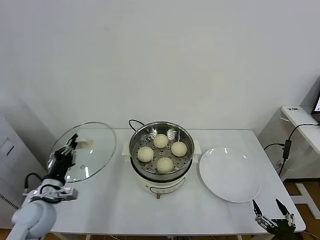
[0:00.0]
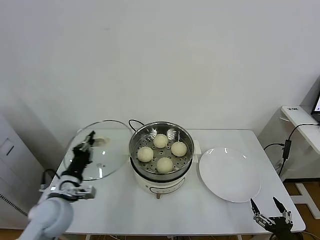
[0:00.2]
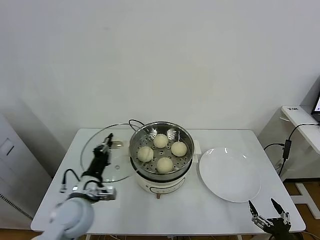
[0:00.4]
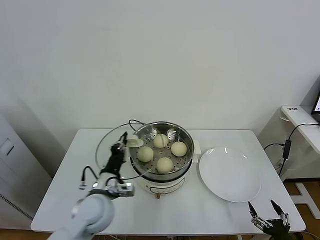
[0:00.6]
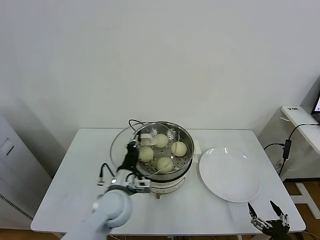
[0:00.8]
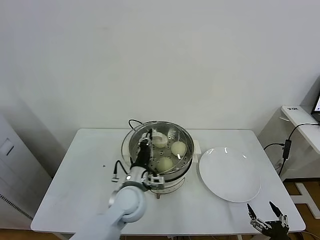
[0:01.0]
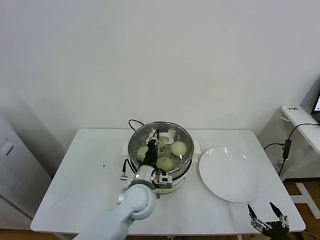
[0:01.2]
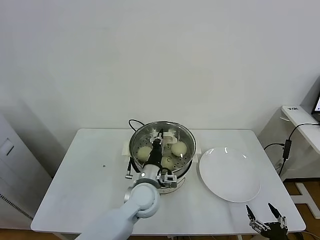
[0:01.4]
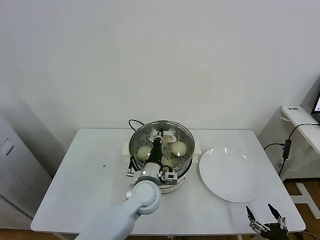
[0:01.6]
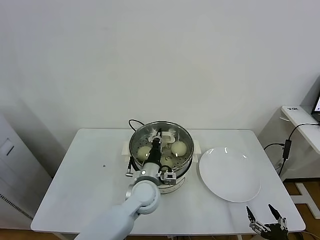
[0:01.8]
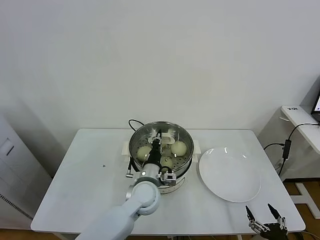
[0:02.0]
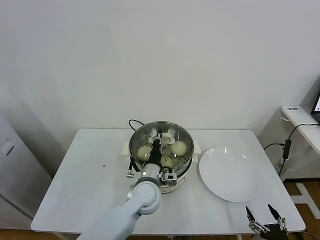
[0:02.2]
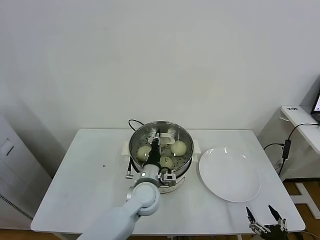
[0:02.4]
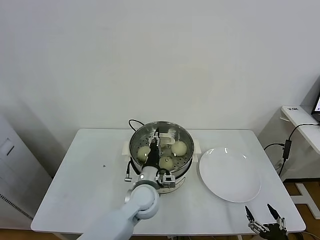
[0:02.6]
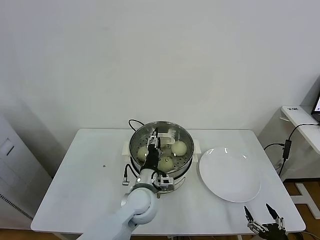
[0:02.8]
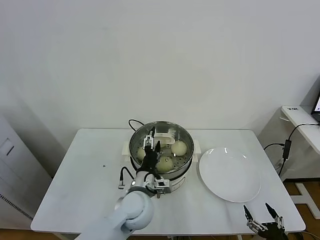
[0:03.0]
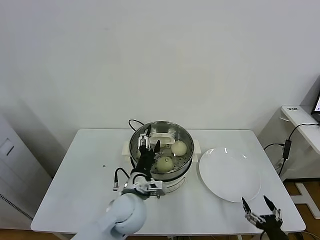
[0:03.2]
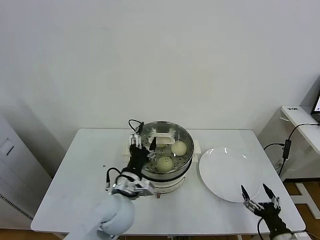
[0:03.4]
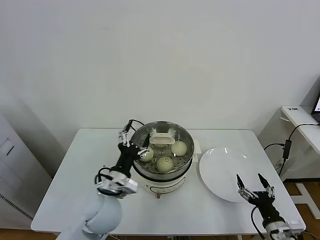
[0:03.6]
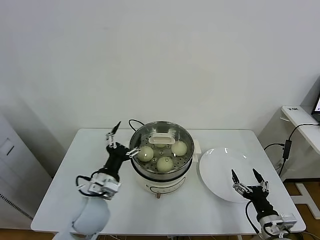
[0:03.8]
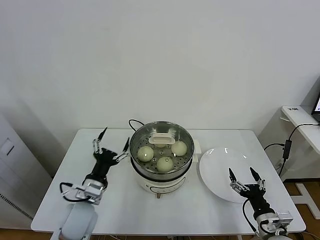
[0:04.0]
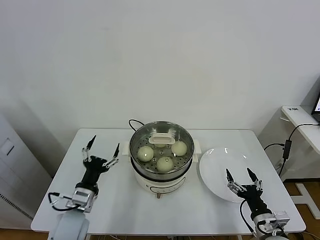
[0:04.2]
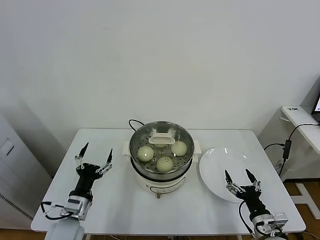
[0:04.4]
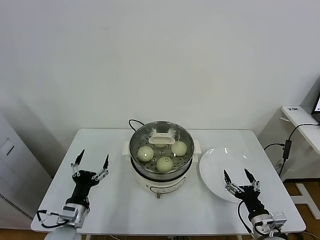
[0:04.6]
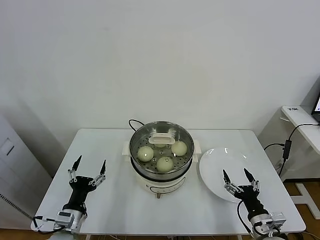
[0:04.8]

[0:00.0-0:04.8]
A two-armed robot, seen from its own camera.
Task of the whole recording: take steamed baozi put them in steamer.
Step, 0:00.0 to 0:03.0: Place the pot lid on the steamer with left gripper.
0:00.0 to 0:01.6: The left gripper is displaced to the right by approximately 30 cm.
0:01.6 to 0:03.2: The left gripper travels backward by approximately 5 cm, and opens its fingers.
0:03.2 to 0:04.8: The right gripper travels forward and to the left by approximately 10 cm. The left gripper heads to the left and downward, covering approximately 20 cm.
